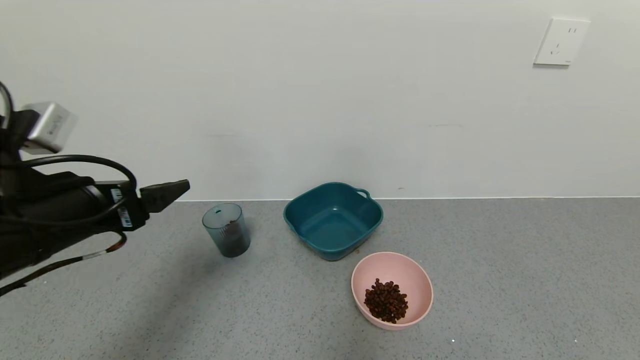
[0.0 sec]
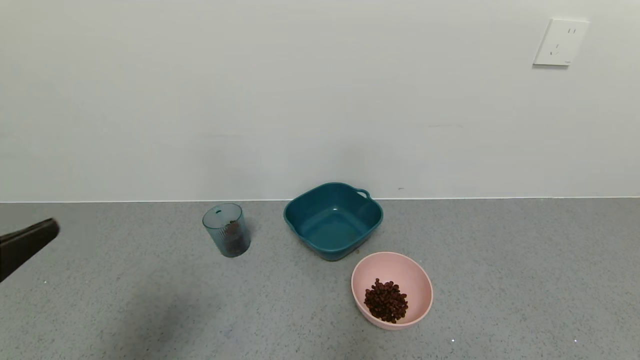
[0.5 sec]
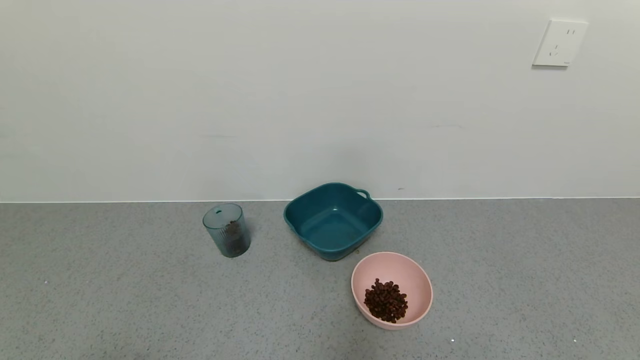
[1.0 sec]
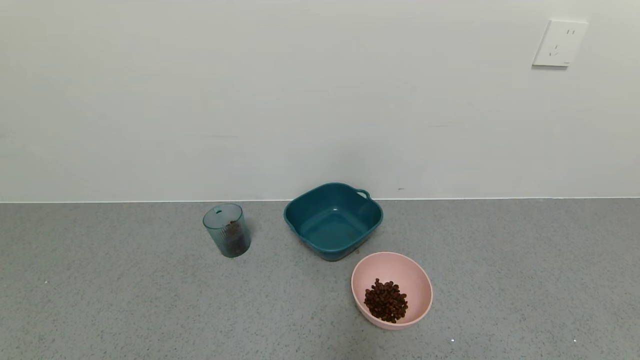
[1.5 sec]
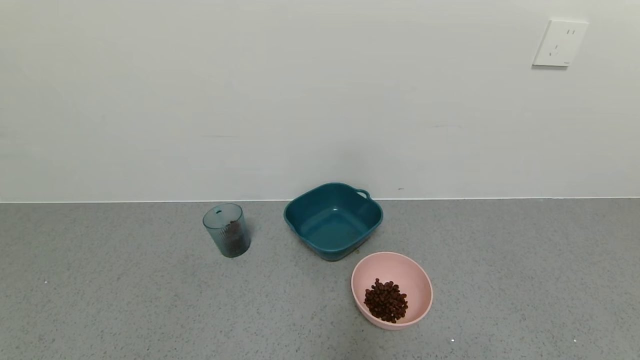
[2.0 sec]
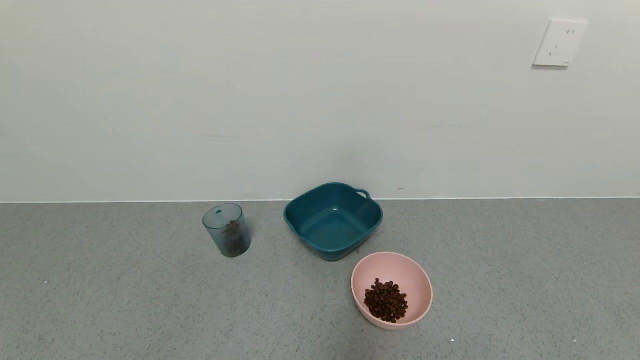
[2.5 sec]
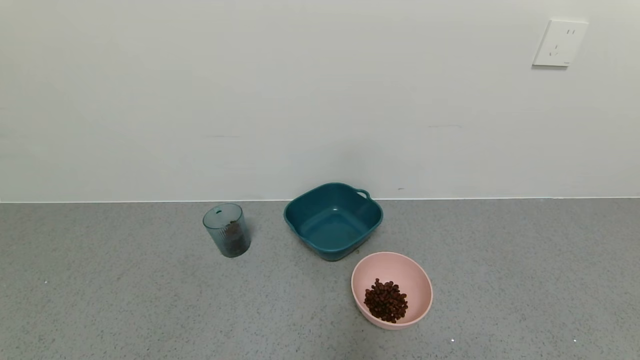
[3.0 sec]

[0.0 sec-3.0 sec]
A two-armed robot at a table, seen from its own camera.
Task of the whole recording: use a gripper to pick up the cup and pour the solid into a bowl or tray.
0.0 sec to 1.5 sec: The left gripper moves backward, roughly 25 cm.
